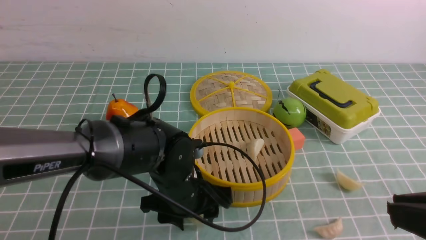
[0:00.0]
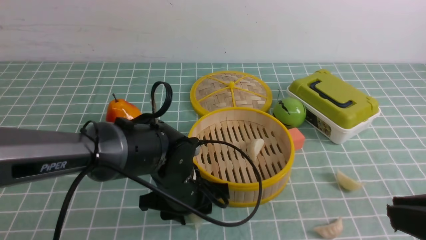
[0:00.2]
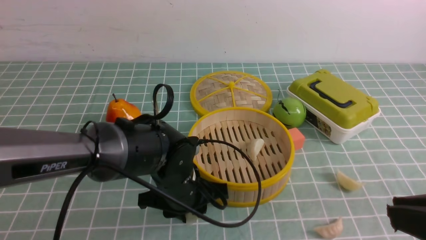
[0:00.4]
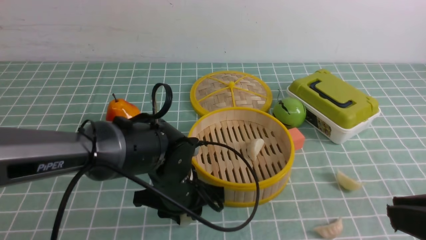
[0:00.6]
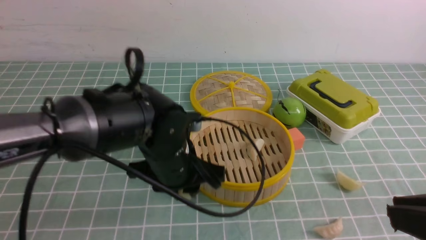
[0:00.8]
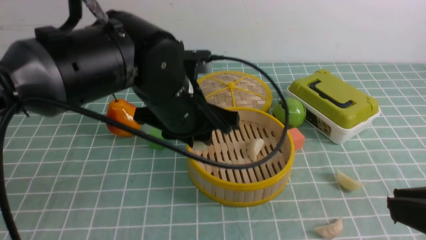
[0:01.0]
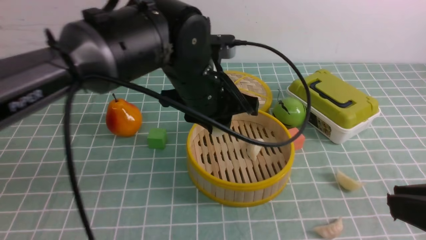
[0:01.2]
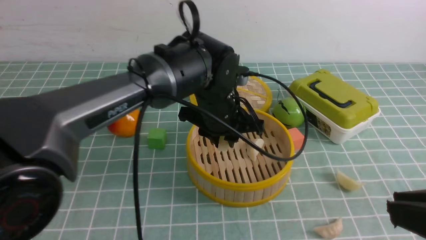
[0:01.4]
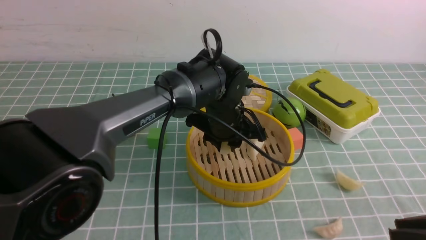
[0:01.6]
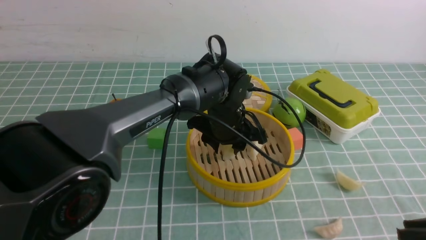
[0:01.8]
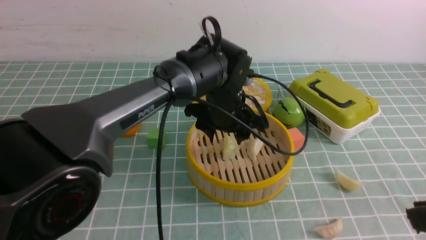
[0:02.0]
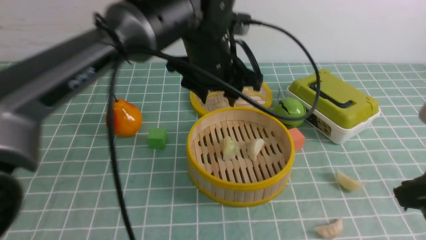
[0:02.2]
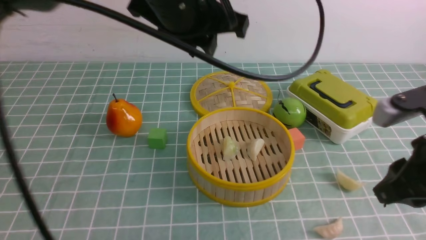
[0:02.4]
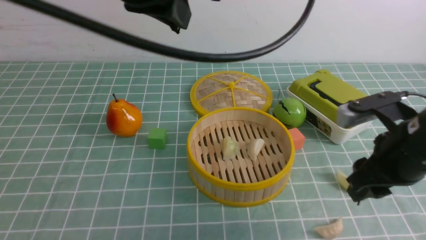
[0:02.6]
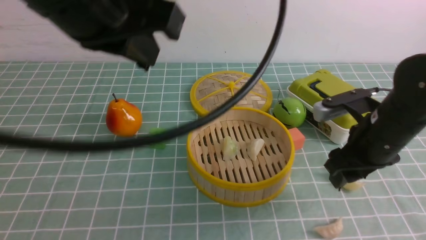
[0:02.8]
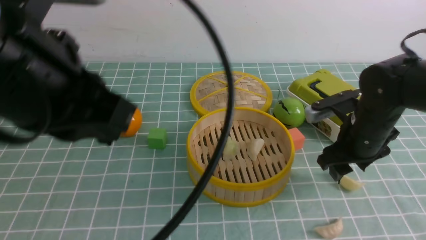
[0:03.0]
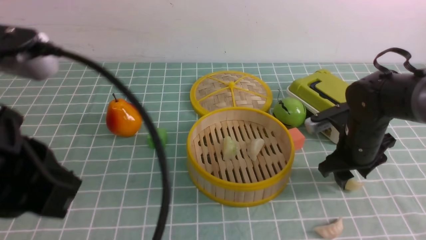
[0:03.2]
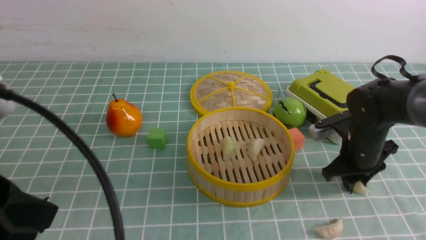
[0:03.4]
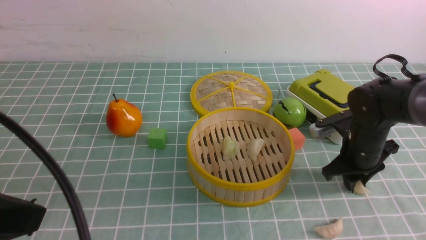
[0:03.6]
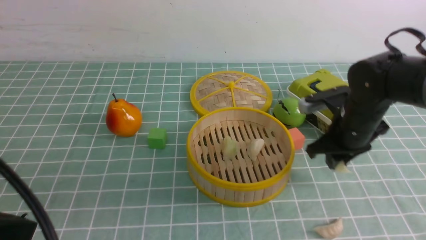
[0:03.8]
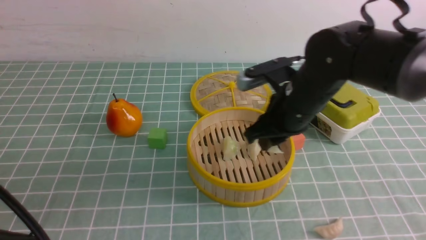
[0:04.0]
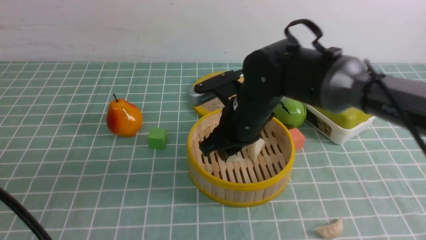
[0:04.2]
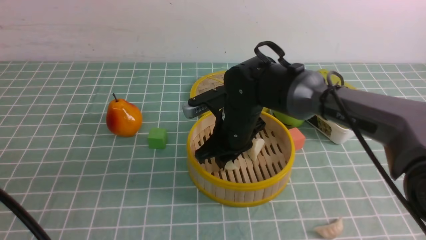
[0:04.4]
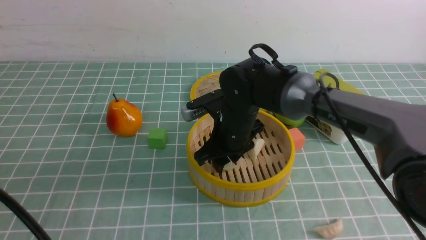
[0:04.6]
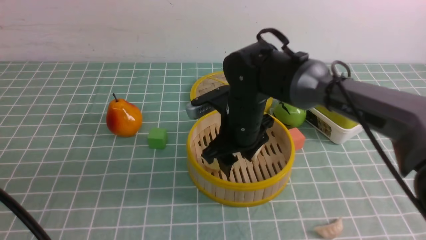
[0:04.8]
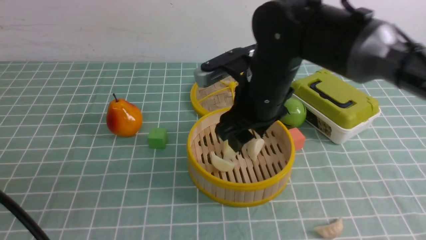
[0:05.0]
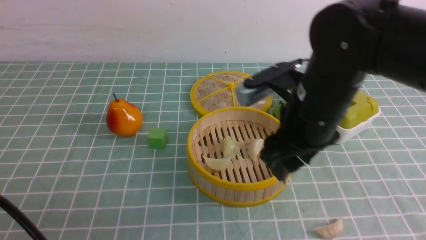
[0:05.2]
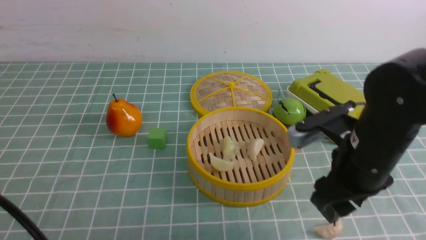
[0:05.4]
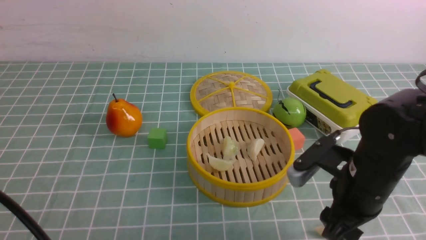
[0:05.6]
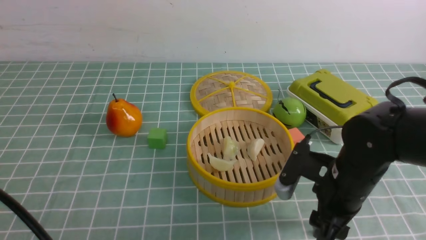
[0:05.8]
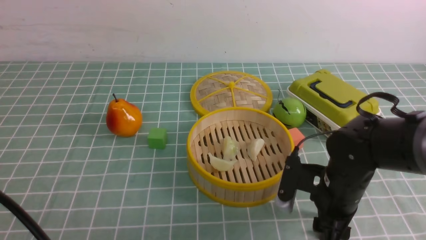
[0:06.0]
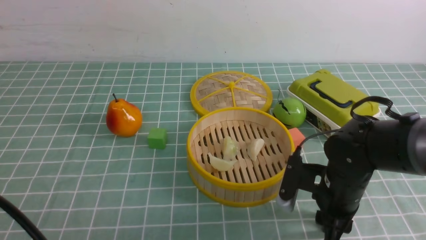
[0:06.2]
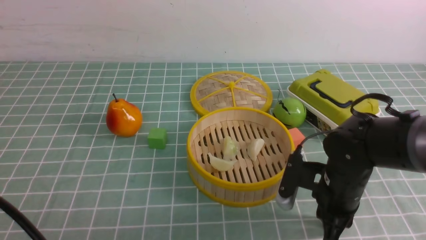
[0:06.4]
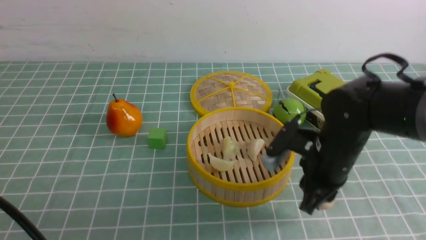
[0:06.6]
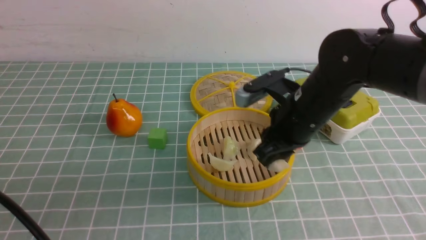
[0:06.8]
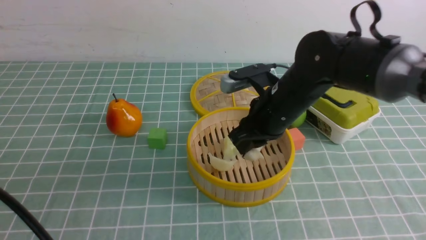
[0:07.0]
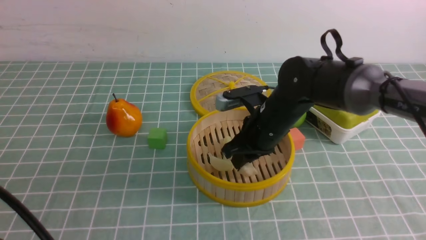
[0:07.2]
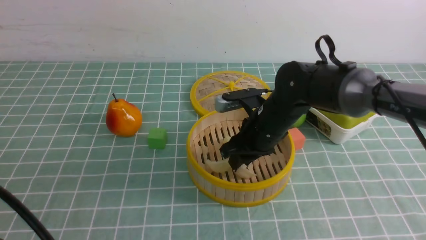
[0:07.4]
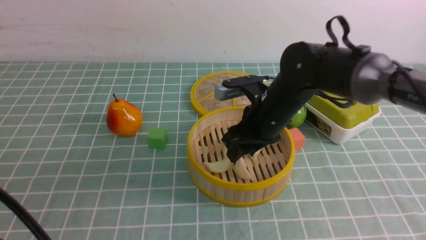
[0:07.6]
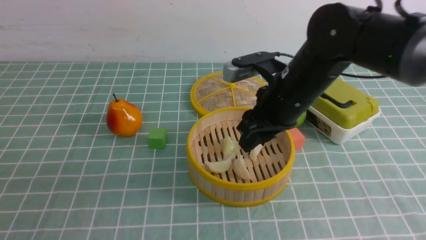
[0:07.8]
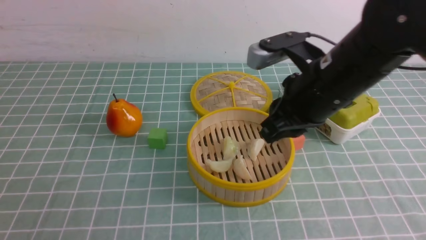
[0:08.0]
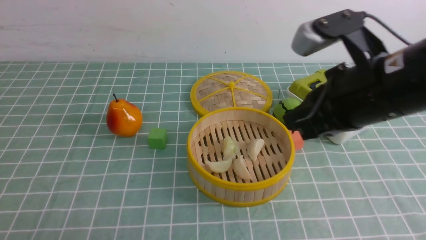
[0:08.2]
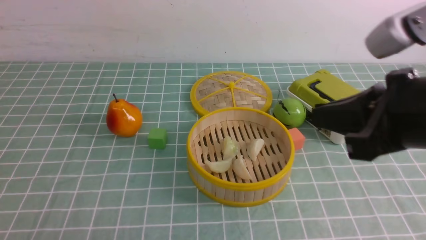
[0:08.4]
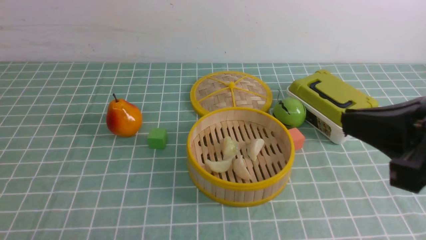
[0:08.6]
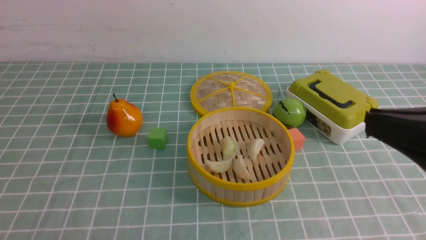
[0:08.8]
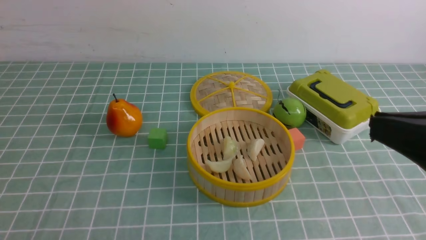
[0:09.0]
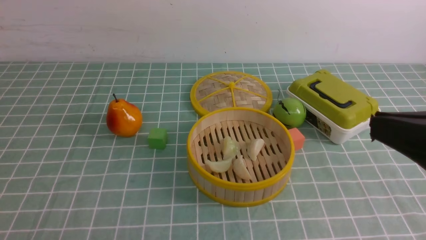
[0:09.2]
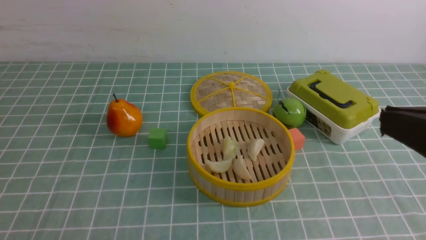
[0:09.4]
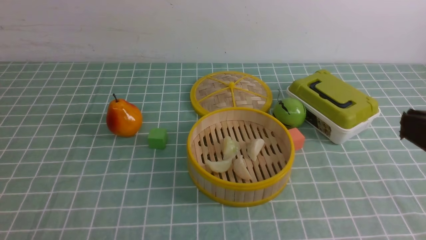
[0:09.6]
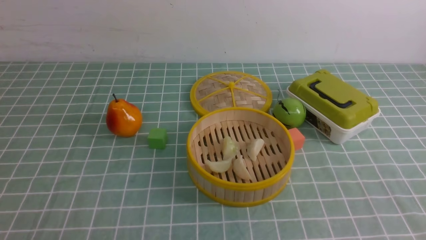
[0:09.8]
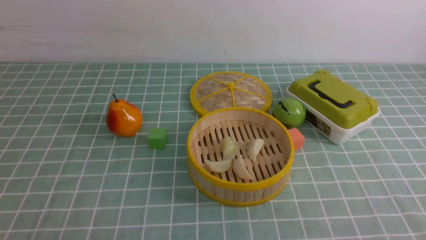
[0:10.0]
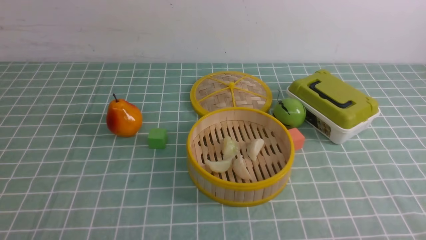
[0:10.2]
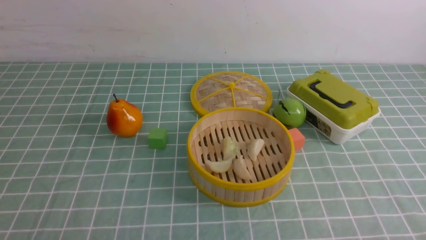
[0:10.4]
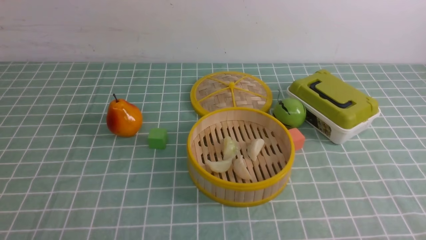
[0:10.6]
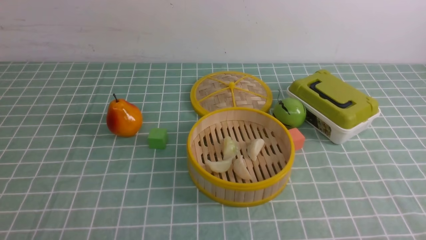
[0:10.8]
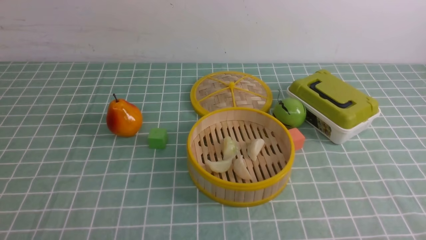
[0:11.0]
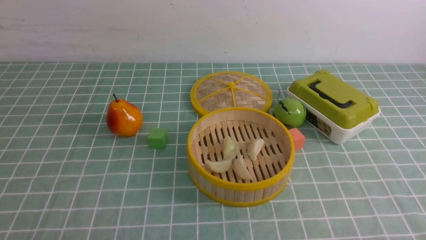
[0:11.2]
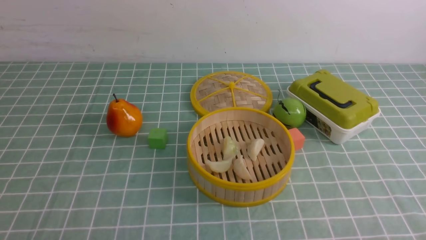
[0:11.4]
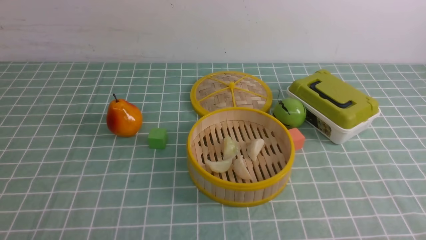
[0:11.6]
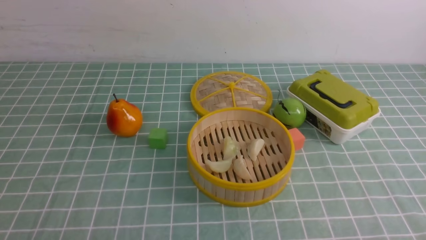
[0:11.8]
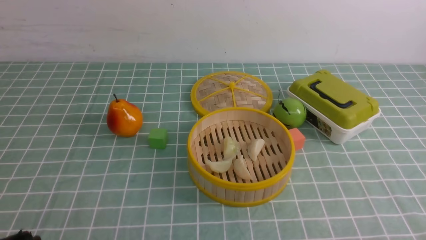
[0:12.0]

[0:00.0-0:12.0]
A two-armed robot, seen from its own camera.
Task of the whole recording: put the dumplings into the steamer on the table with the blue tablecloth.
Step, 0:00.6 to 0:02.0: use the left arm to put the dumpling into the steamer.
Step, 0:02.2 to 0:03.4: use the right arm to grab a dumpling.
Step, 0:03.6 to 0:04.6: use the right arm to put the dumpling into the steamer.
Step, 0:05.0 to 0:06.2: use the right arm to grab a dumpling.
Step, 0:06.4 to 0:07.6: use the right arm to put the dumpling into the steamer.
0:00.0 to 0:01.6: The left gripper goes some 15 cm forward, to the right and upward, and closes up.
0:01.6 to 0:03.0: The right gripper heads forward and downward, covering roughly 25 cm, and opens its fingers. The left gripper is displaced upward, backward and to the left by approximately 35 cm, and closes.
0:03.0 to 0:04.4: The right gripper goes roughly 20 cm to the left, and closes, while the left gripper goes approximately 15 cm backward, downward and to the left.
0:04.4 to 0:06.0: The right gripper travels to the right and backward by some 15 cm, and opens.
0:06.0 to 0:07.6: The right gripper goes about 15 cm forward, to the left and upward.
0:07.6 to 0:09.0: The right gripper travels backward, upward and to the right by about 30 cm, and closes. The left gripper changes place by about 10 cm.
0:09.0 to 0:10.4: The right gripper moves downward and to the right, approximately 20 cm.

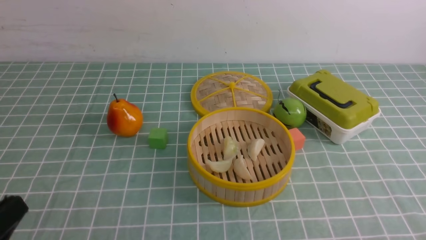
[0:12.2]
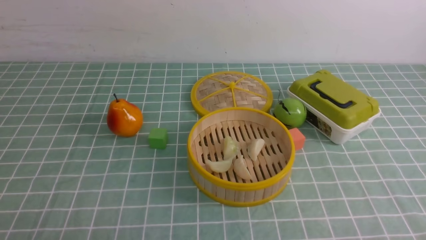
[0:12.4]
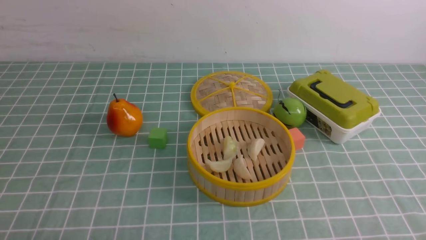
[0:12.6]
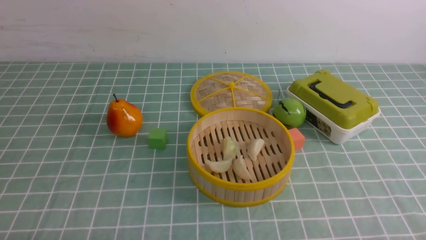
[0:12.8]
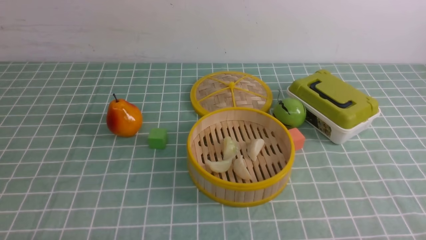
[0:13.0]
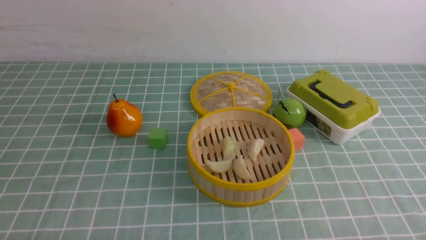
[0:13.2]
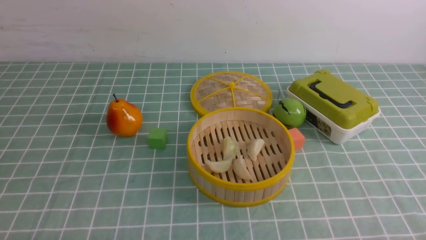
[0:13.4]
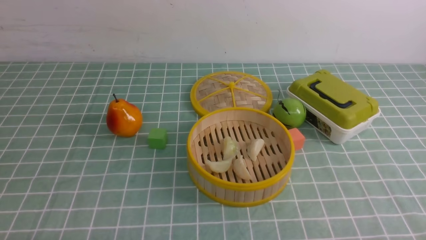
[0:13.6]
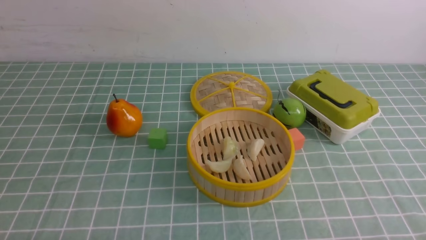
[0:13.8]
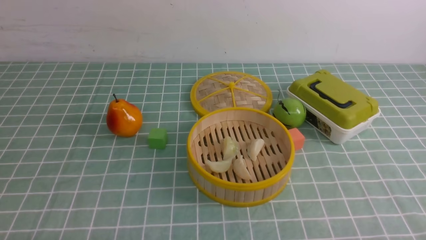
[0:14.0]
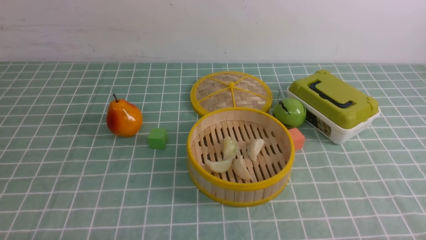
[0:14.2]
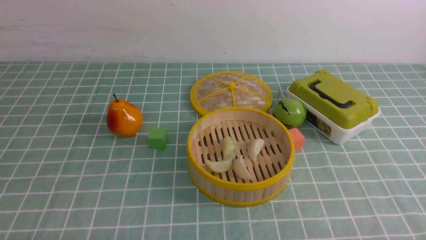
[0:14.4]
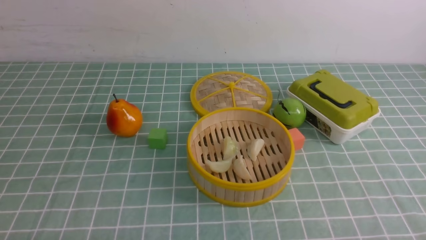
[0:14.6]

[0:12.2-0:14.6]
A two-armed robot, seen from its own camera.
Task of the whole recording: put the dumplings into the steamer on the table with the blue tablecloth.
0:12.2 to 0:13.4: The left gripper moves downward, approximately 10 cm.
0:13.4 to 0:14.6: The two grippers keep their place.
